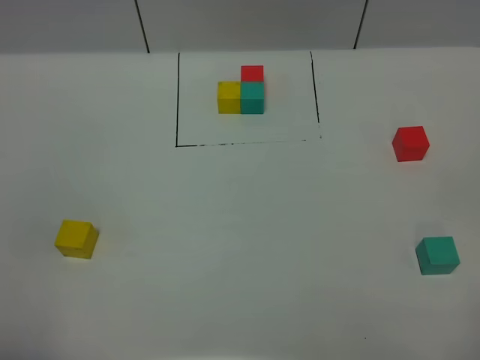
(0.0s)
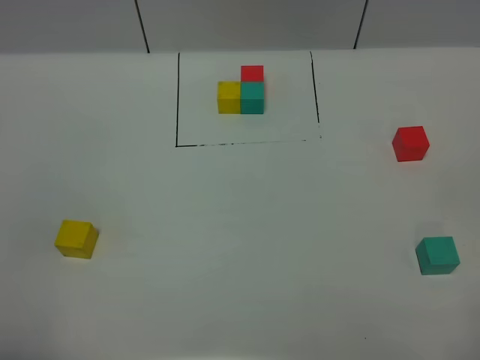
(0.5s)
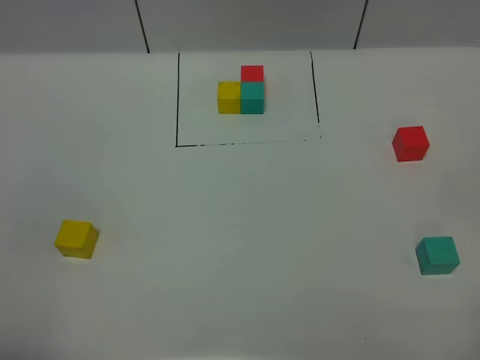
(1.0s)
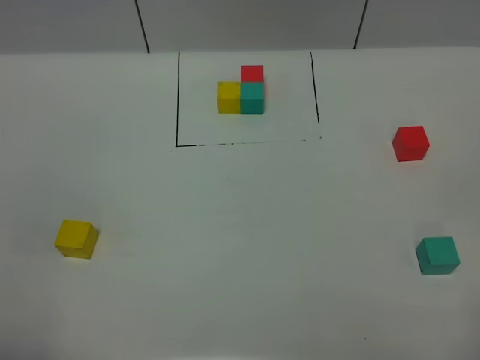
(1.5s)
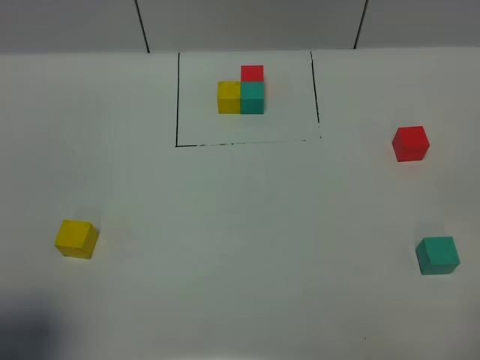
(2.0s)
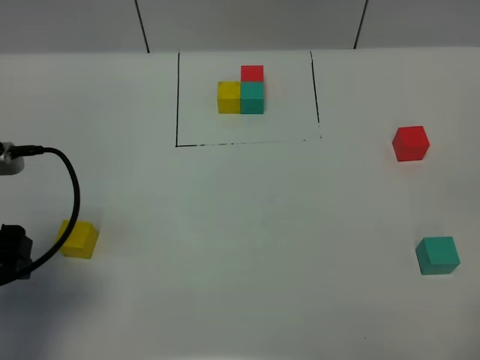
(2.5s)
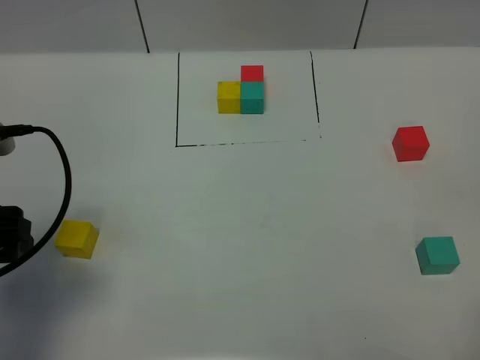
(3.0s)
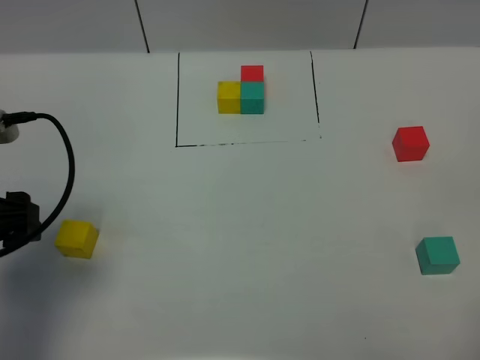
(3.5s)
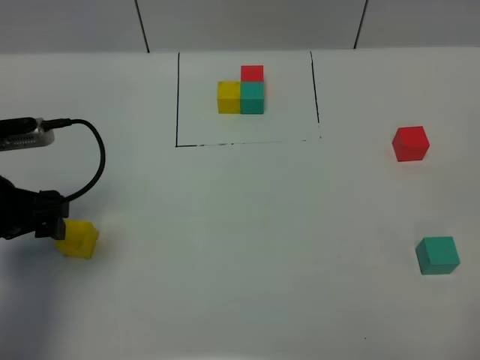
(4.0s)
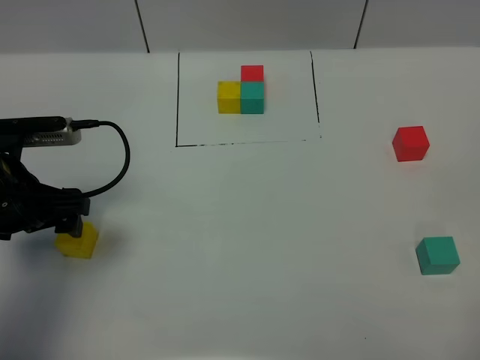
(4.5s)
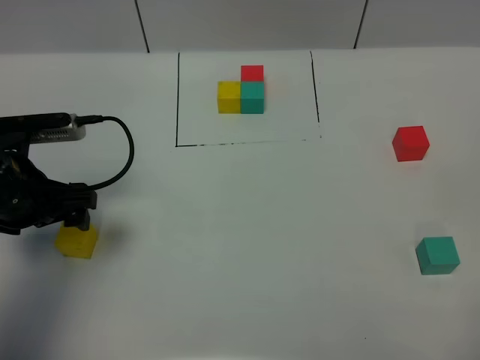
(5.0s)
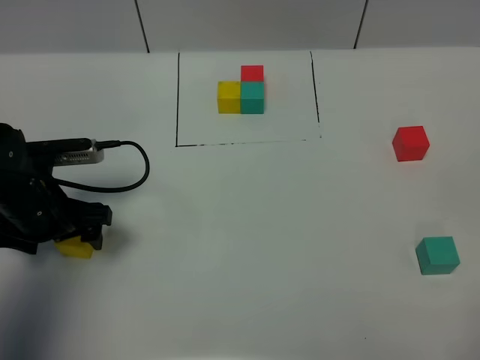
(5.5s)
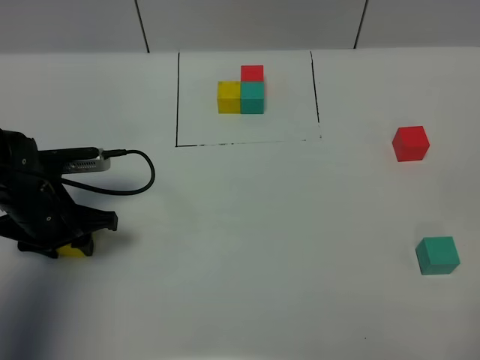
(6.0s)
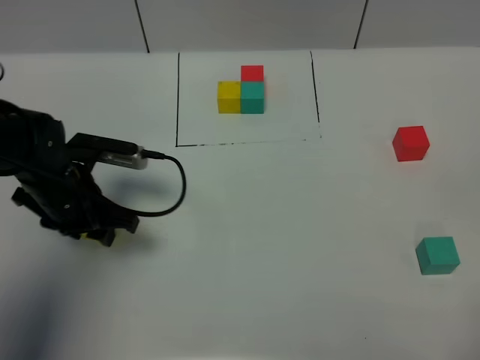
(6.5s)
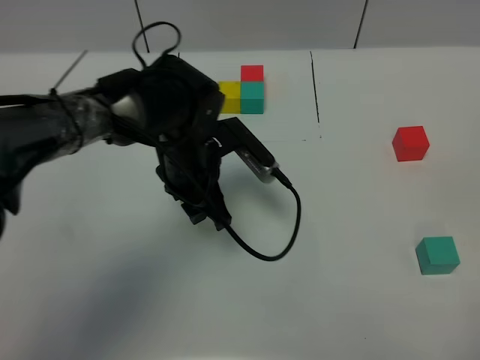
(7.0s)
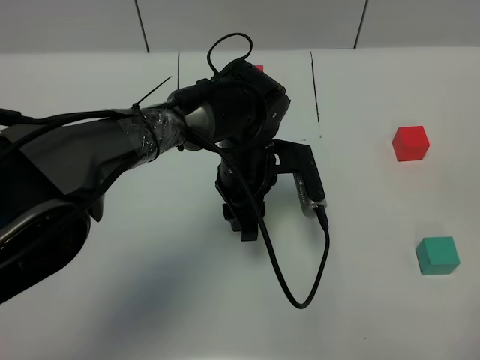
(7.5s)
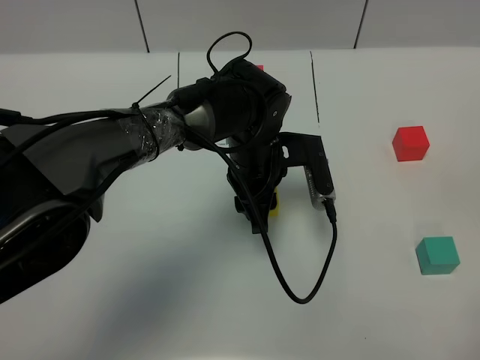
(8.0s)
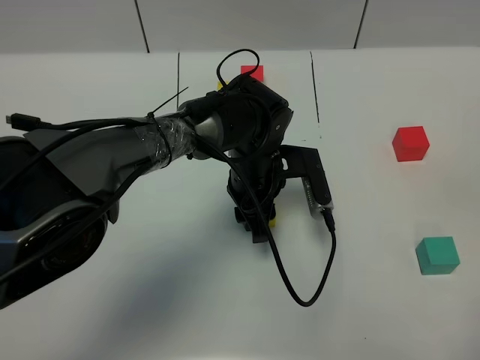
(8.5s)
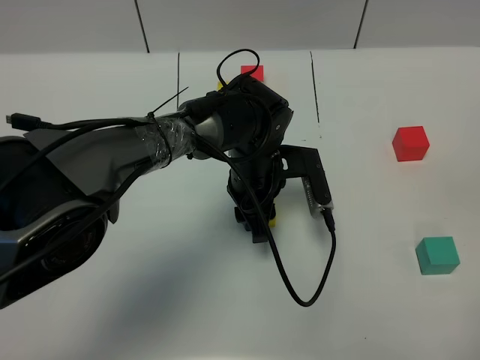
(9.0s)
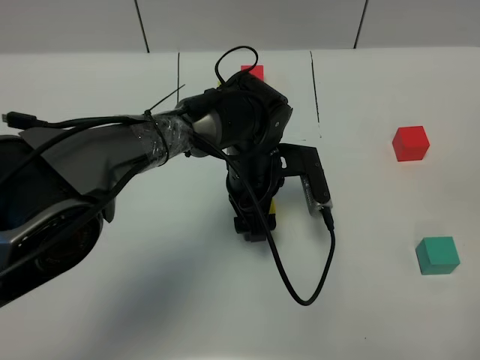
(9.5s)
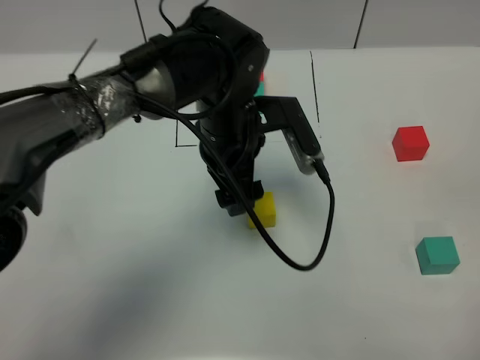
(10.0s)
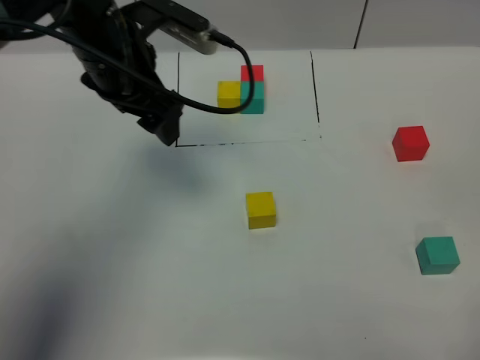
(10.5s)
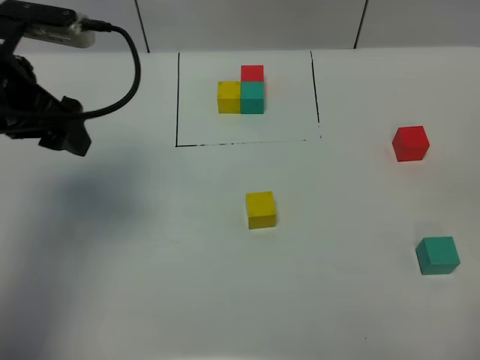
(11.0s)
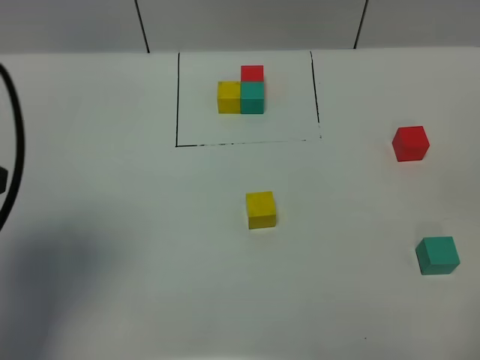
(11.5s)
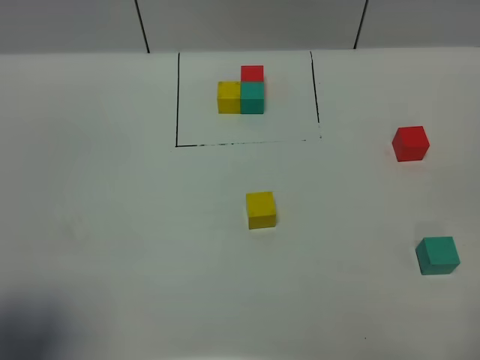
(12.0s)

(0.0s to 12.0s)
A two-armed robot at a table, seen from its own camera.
Task of the whole recording: According to the building block template in front, assemble the scattered blocks together.
Step, 0.0s - 9.0s: Put the yellow build block in the center of the table.
0.0s - 2.0s: The left gripper moves forward, approximately 10 cm.
2.0s - 4.0s: The left gripper shifts approximately 20 cm forward and downward.
4.0s - 6.0s: The left gripper moves downward, about 10 cm, and closes its fingers.
6.0s - 8.0s: The left gripper shifts roughly 25 cm to the right.
8.0s - 10.0s: The left gripper goes approximately 5 cm upward, and opens its fingers.
10.0s - 12.0s: The left gripper shifts some 40 cm to the left, backward and upward.

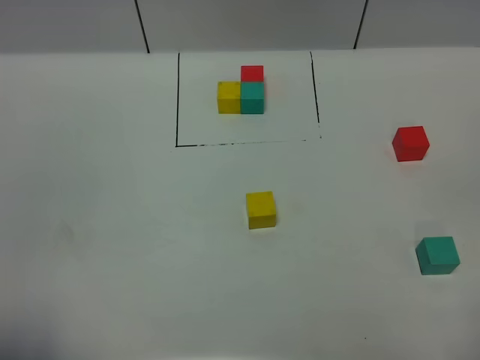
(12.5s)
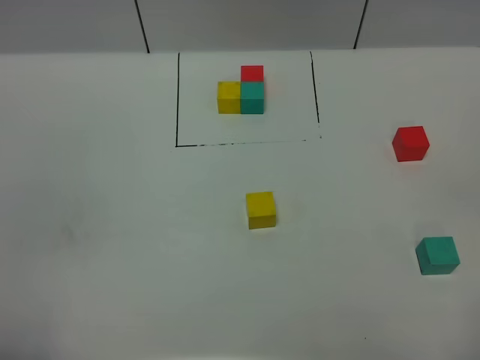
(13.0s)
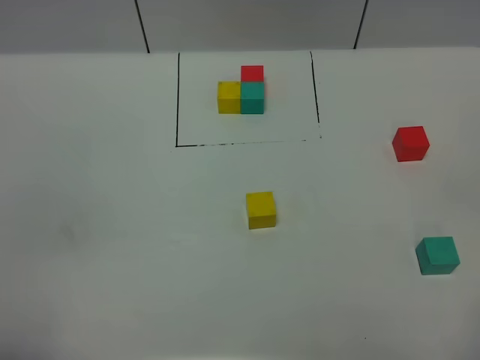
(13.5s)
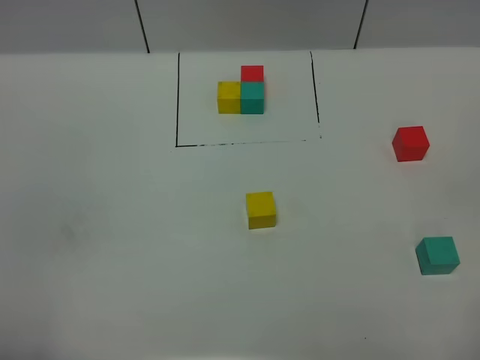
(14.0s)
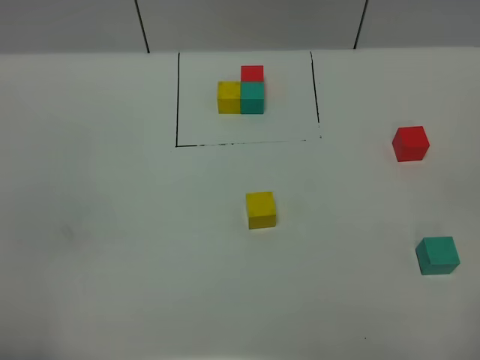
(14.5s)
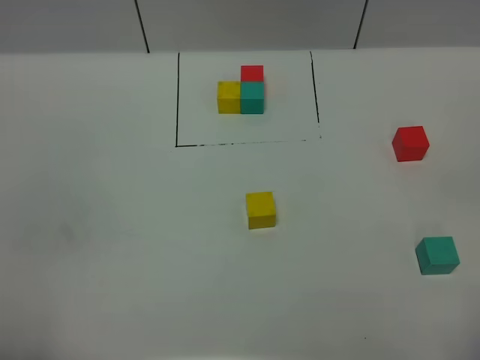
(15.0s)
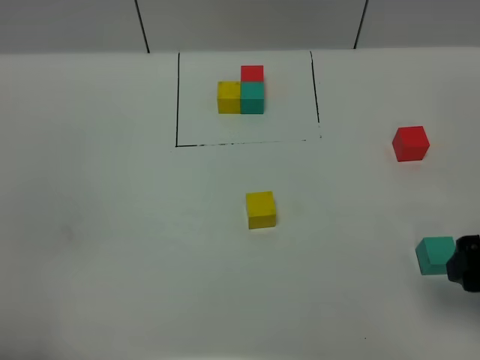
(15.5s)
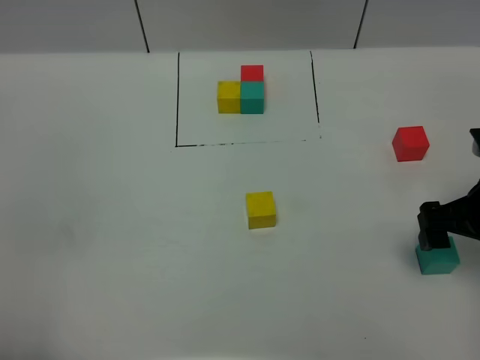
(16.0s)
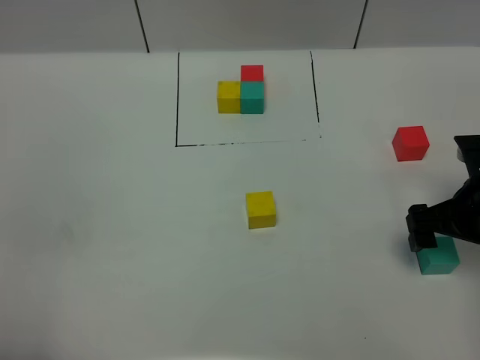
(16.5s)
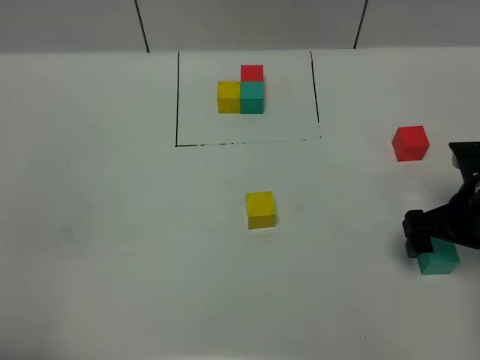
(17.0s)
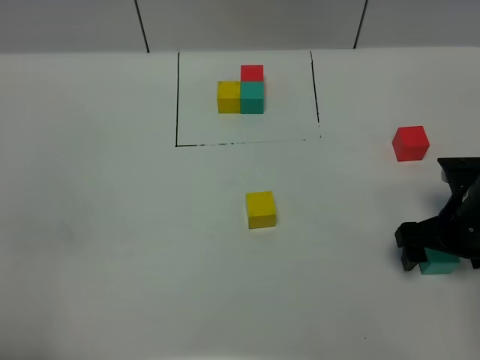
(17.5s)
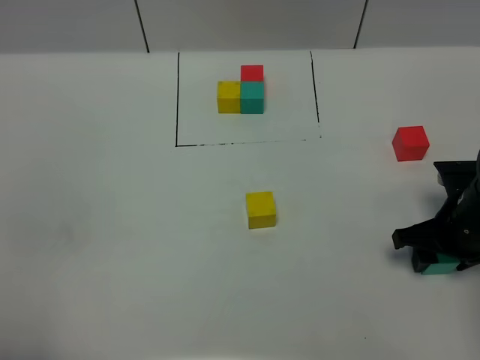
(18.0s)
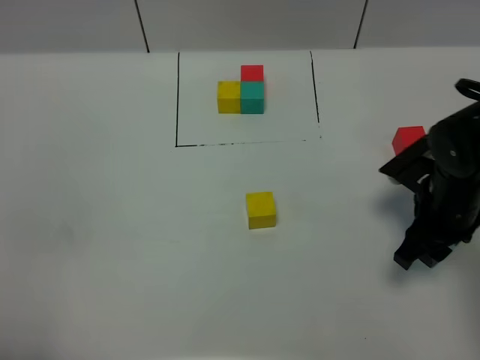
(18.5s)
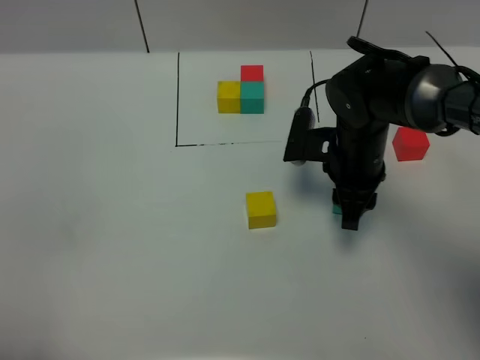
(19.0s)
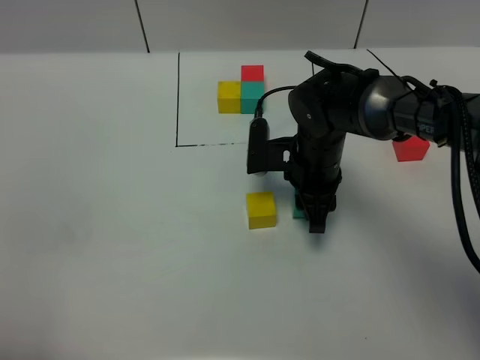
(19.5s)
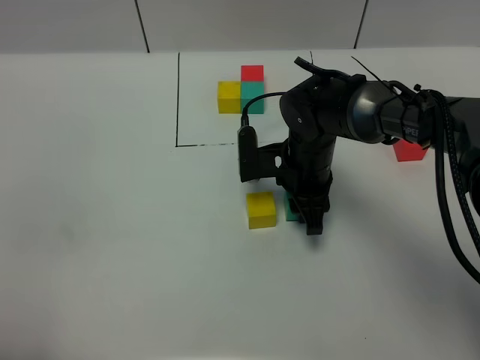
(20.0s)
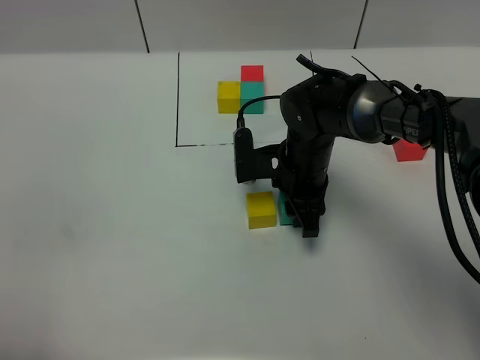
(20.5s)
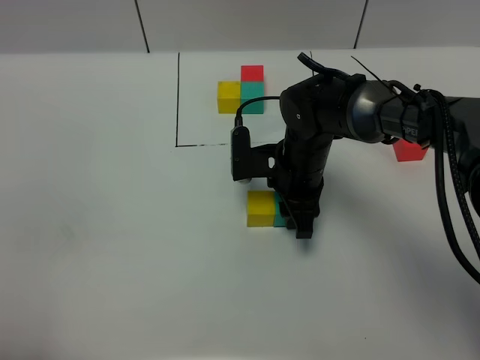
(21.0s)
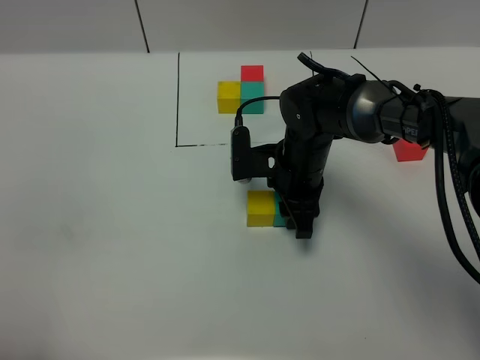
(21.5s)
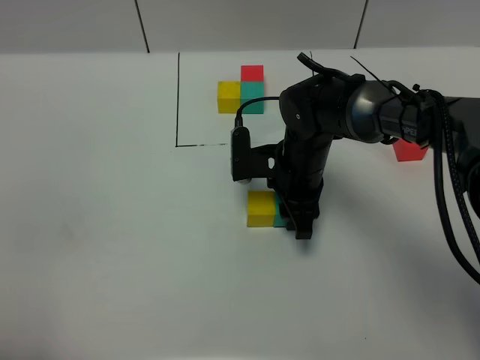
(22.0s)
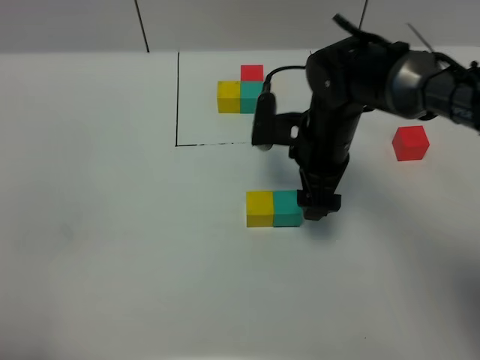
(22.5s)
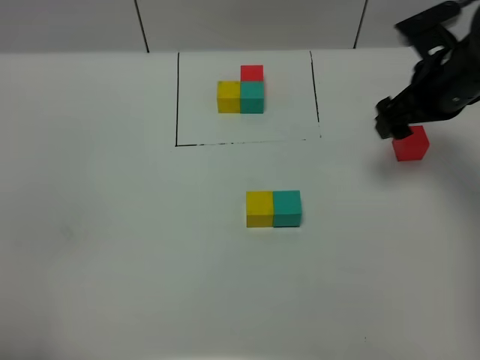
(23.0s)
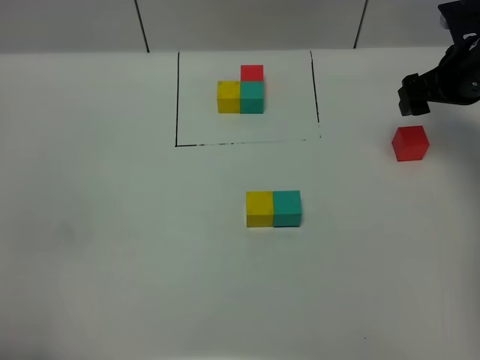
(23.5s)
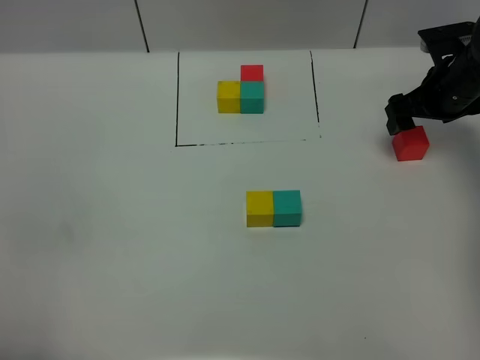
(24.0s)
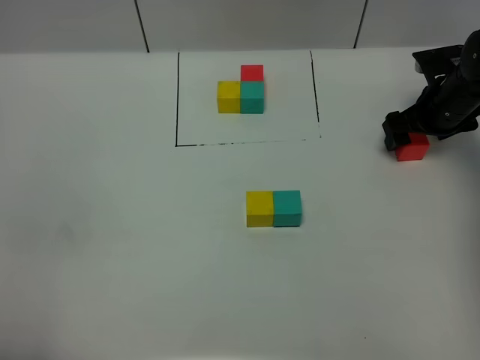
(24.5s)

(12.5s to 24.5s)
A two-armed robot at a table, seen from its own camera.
Task of the whole recording: According to the building block template in front, assemble the scattered blocks together.
Step, 12.5s - 22.0s: Put the green build block on the right of the yellow build block.
14.5s - 16.5s: The right gripper moves forward and downward, some 30 cm.
16.5s - 18.5s: The right gripper shifts by approximately 5 cm, and closes its fingers.
18.5s - 20.5s: The right gripper goes approximately 15 cm to the left and forward.
20.5s - 22.5s: The right gripper travels upward by approximately 5 cm, and opens.
22.5s - 24.5s: The right gripper shifts roughly 20 cm to the right.

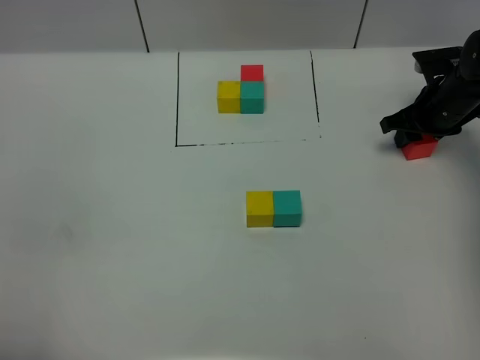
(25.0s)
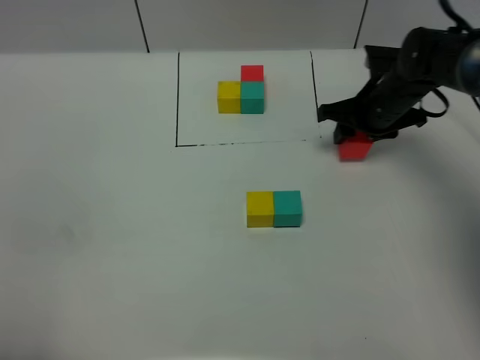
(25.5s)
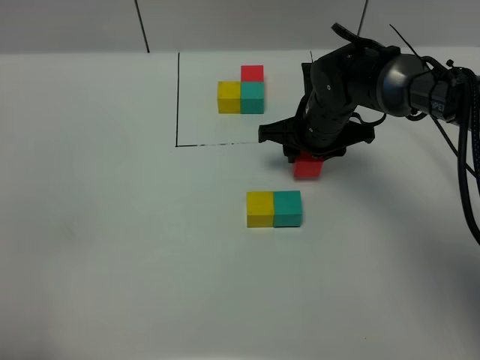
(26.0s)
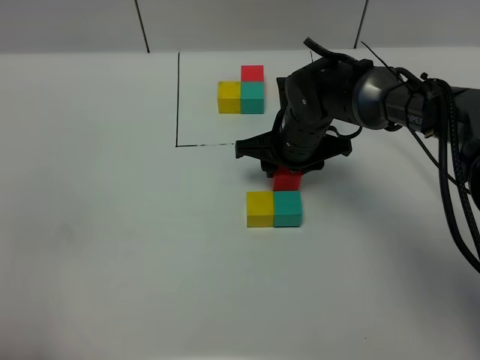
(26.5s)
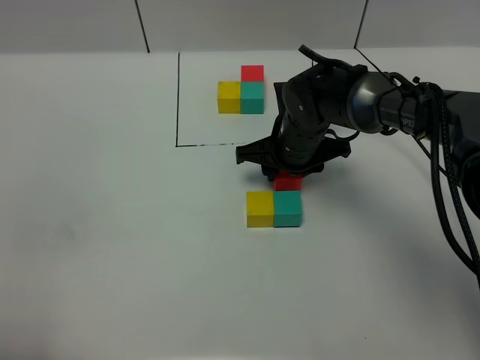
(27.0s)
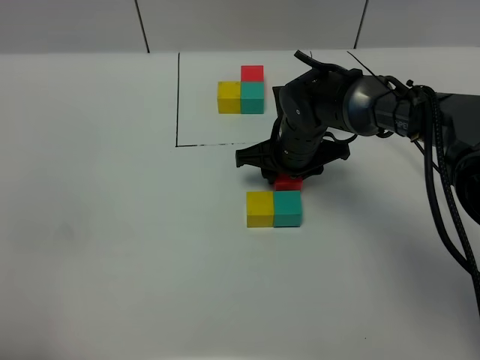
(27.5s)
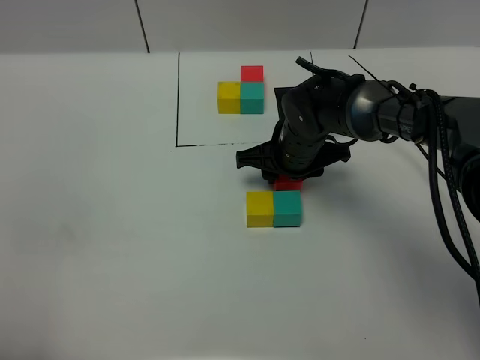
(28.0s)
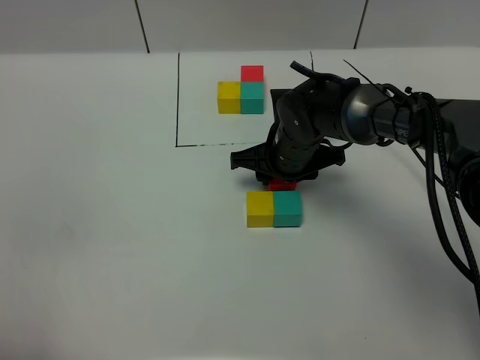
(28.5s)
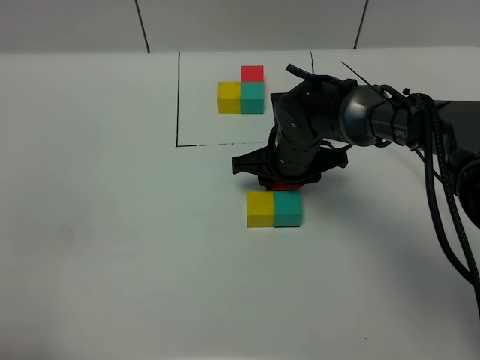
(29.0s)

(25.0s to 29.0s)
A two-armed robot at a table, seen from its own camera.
Task of the whole recording: According to the building block template in front, assemble the scattered blocks together.
25.0s - 27.0s: The right gripper moves to the left, some 25 cm.
27.0s - 29.0s: There are only small adjustments of the grippers.
